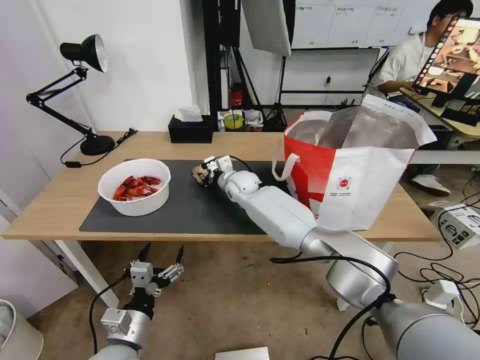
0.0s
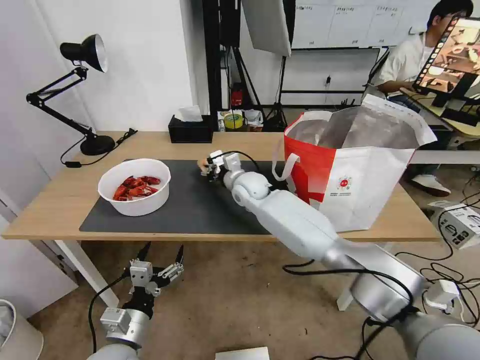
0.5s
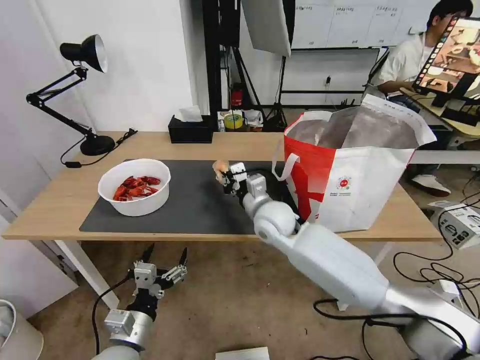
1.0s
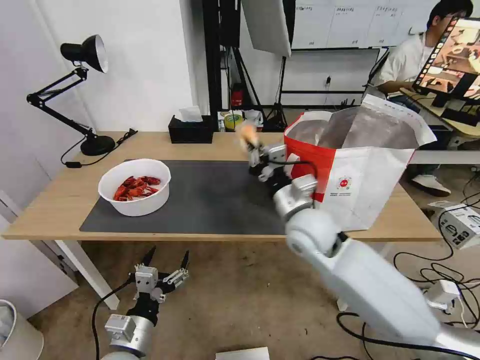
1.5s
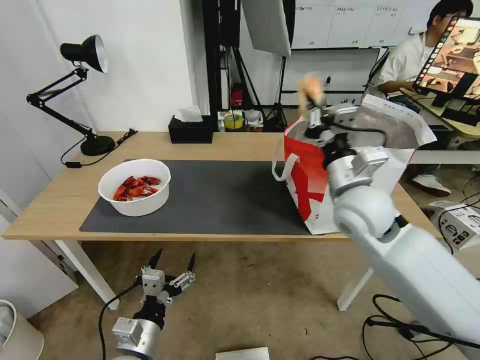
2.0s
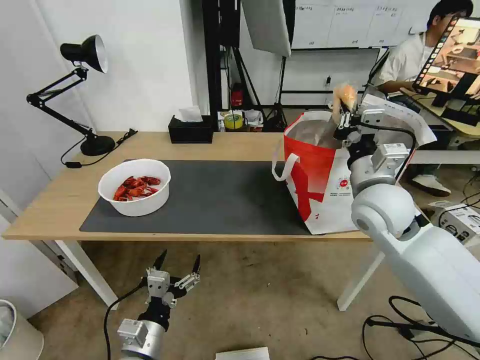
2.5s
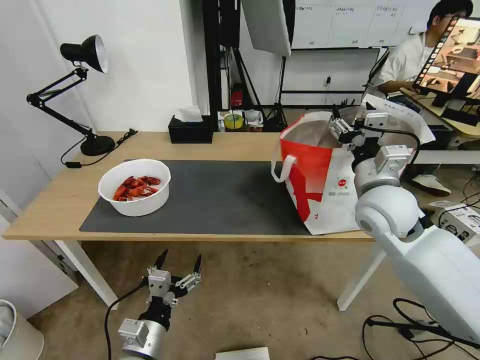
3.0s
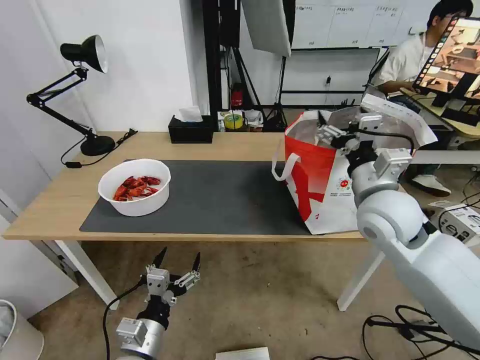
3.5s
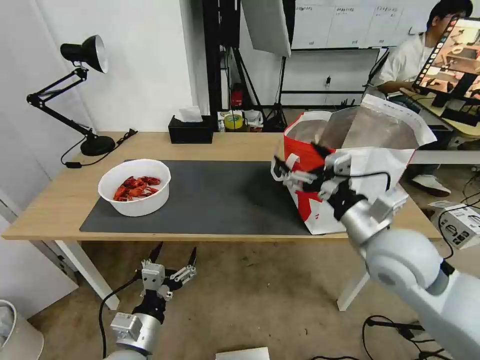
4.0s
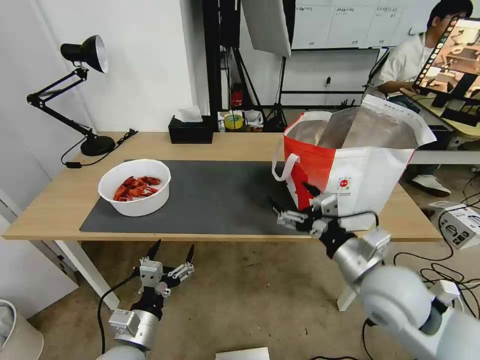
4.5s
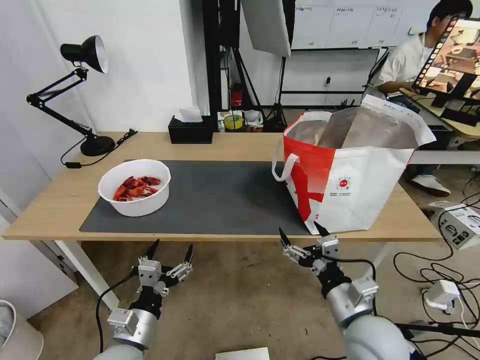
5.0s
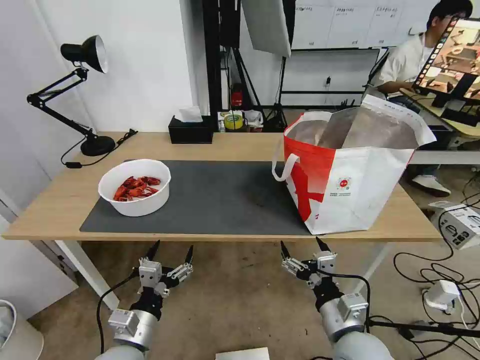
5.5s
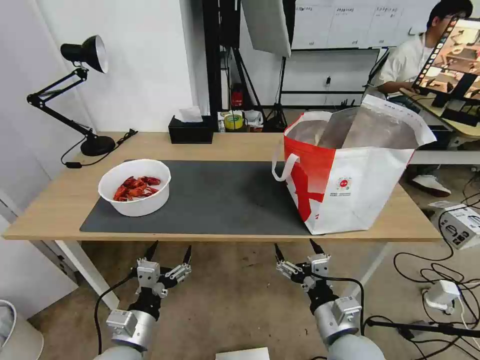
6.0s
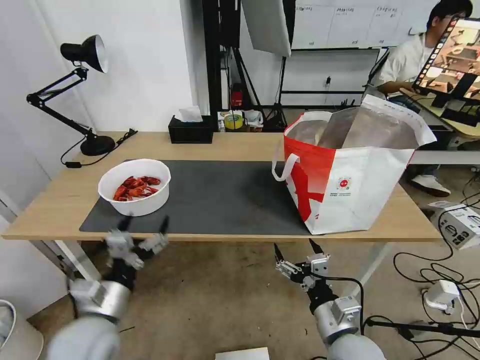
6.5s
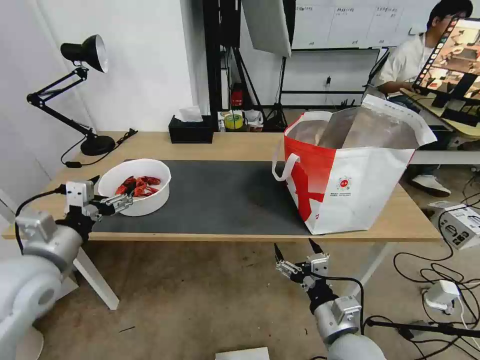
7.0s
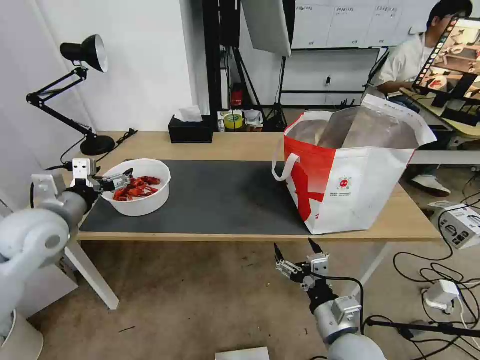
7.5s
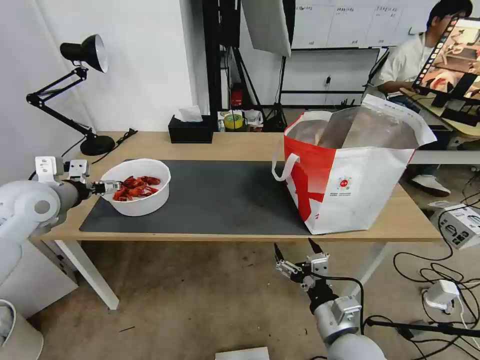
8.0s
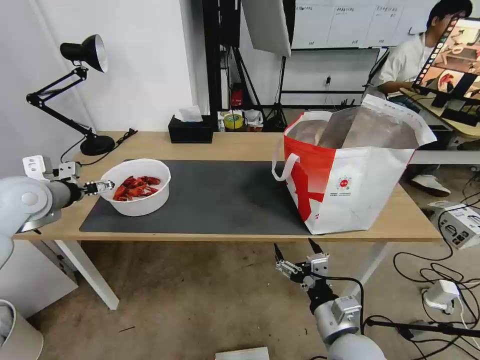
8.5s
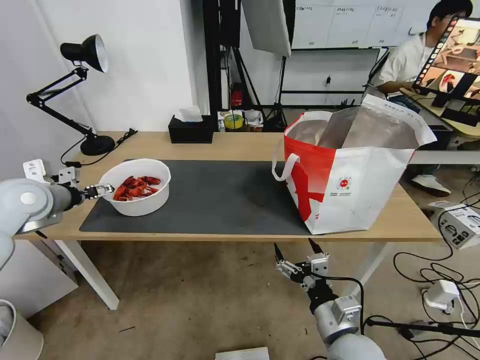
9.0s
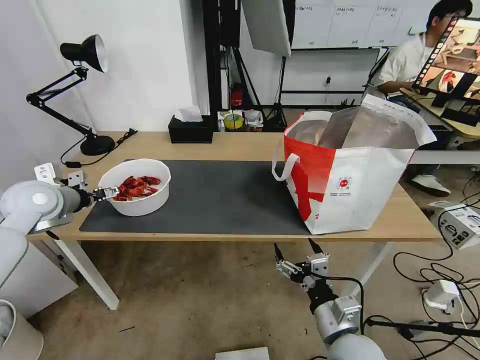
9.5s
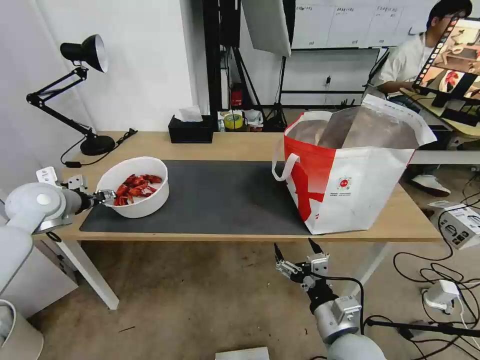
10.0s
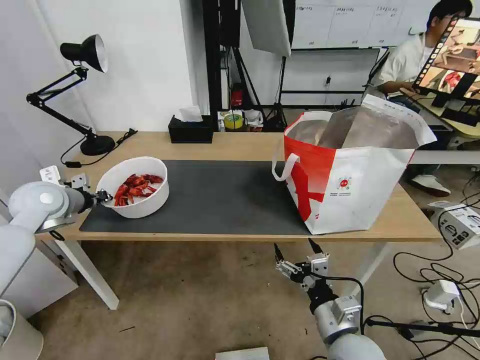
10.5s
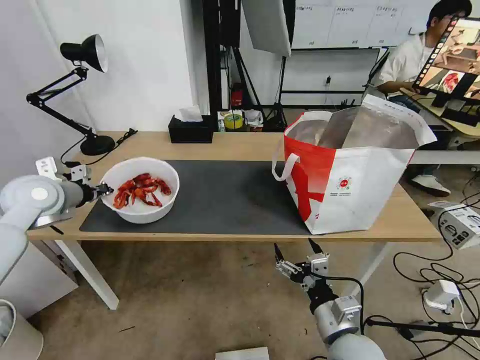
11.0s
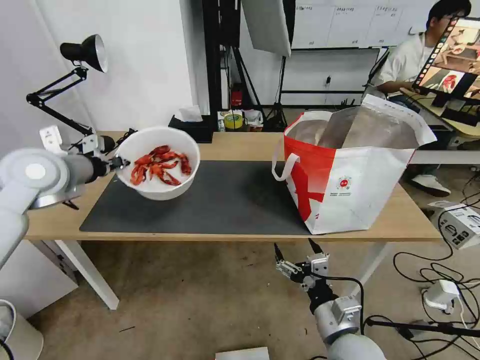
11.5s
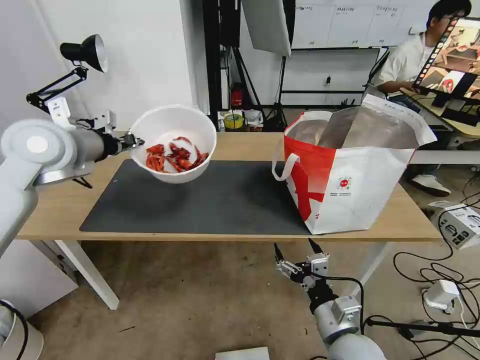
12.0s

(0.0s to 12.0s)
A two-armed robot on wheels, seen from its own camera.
Task of the whole recording: Pick up the trash from the table and place it into the takeout bag.
0.0s - 2.0s: The right gripper travels backward, to the right and upward by about 35 cm.
2.0s - 4.0s: The right gripper moves backward, about 10 cm, and opens up.
4.0s - 6.0s: The right gripper is displaced downward and backward by roughly 20 cm.
6.0s - 8.0s: The left gripper moves forward, upward and to the left, about 35 cm.
8.0s - 10.0s: The left gripper changes place by some 5 cm.
10.0s - 12.0s: The left gripper heads upward and to the right, covering approximately 15 cm, and closes its fingers.

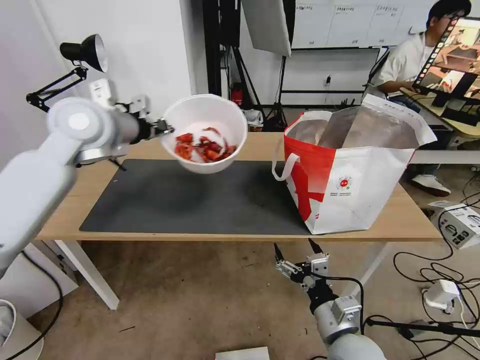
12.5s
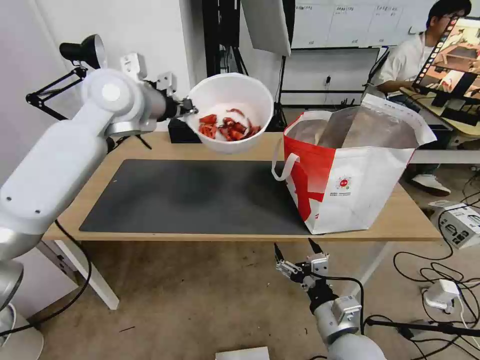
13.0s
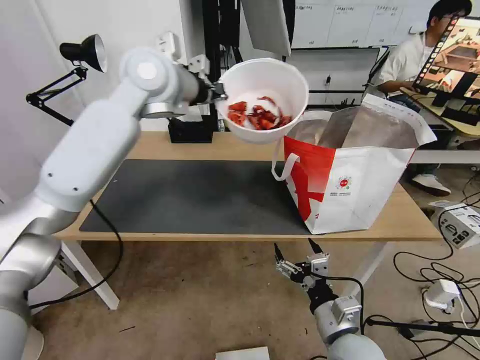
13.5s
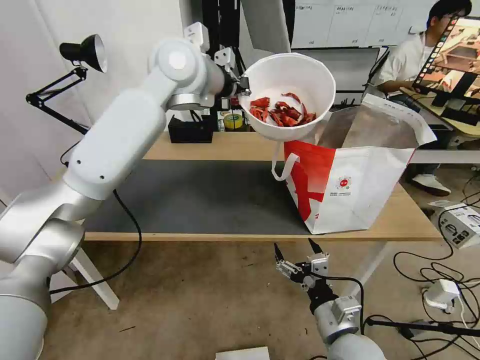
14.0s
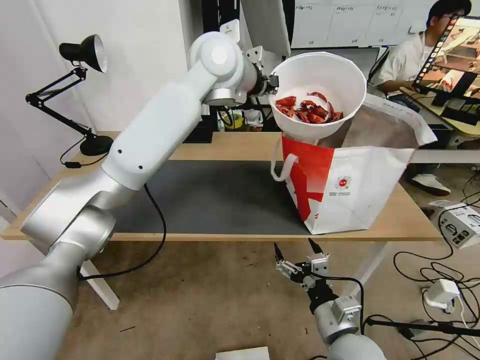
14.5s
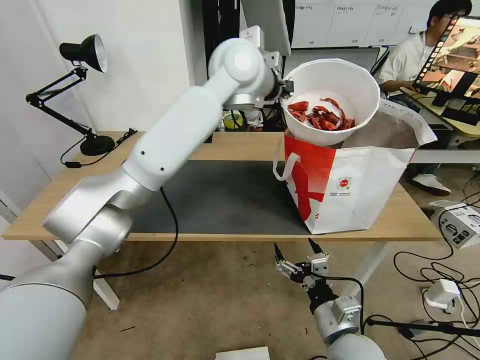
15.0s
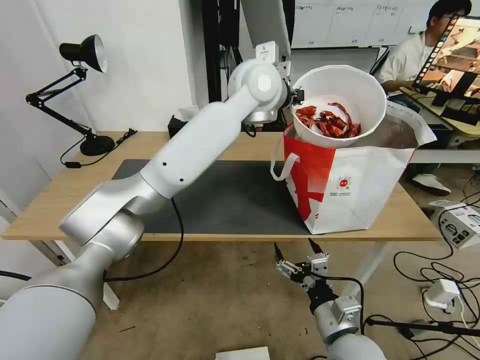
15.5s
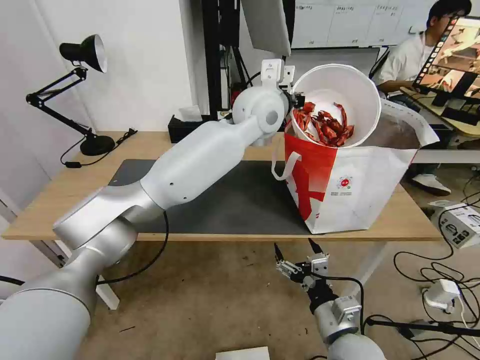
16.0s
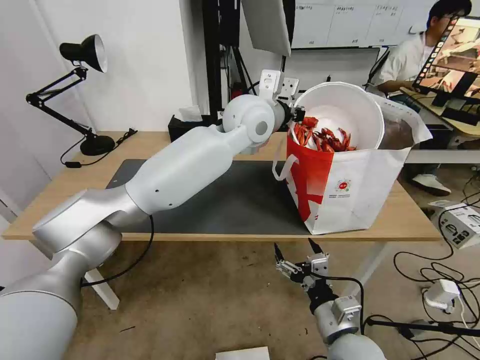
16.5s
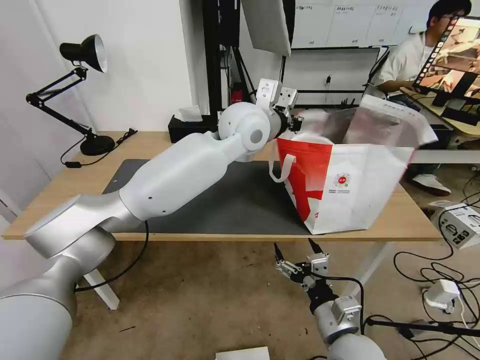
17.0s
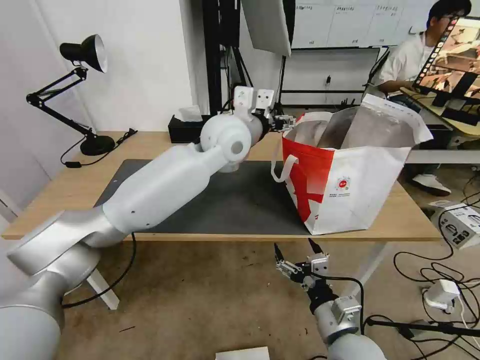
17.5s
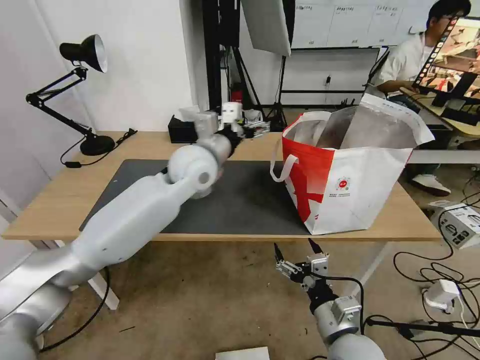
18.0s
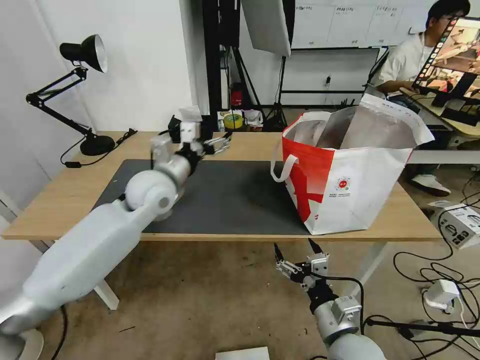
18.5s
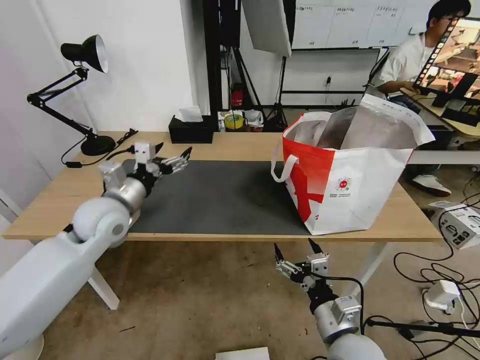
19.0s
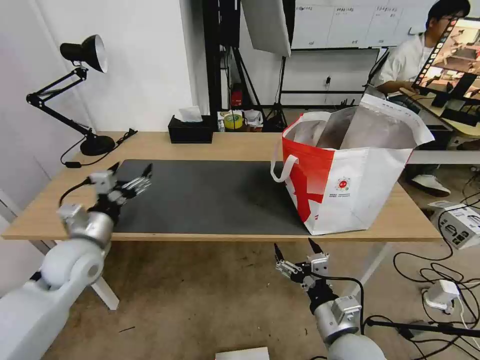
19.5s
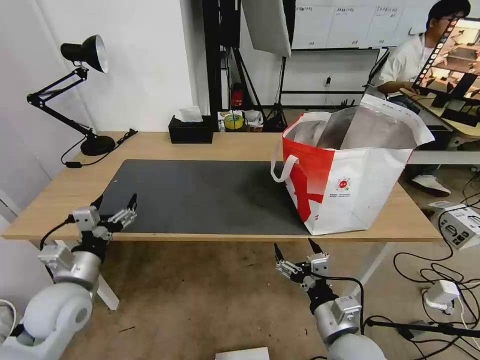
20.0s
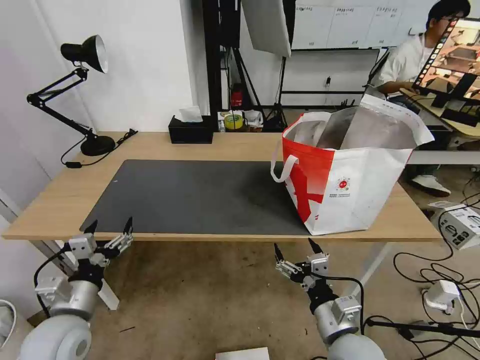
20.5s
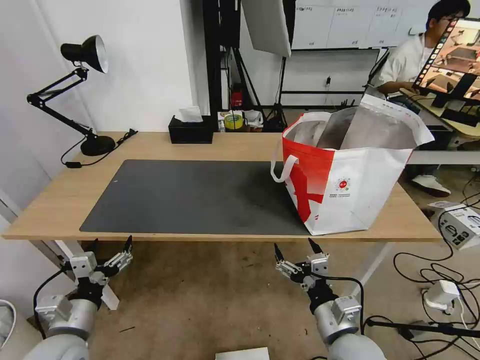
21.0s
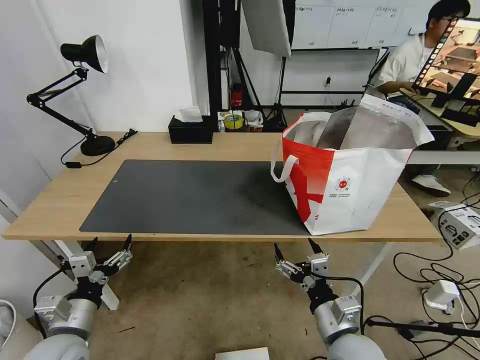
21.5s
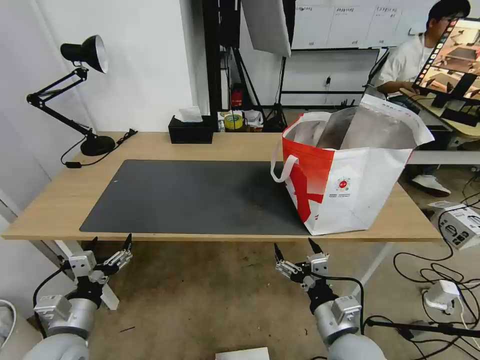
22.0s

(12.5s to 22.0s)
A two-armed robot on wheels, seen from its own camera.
Task of the whole recording: Pick up the trash from the table and place it into the takeout bag.
12.5s - 14.5s: The left gripper shifts about 20 cm to the right.
14.5s - 16.5s: The left gripper travels downward and to the right by approximately 10 cm.
16.5s - 18.0s: The left gripper travels to the left and downward by about 15 cm, and opens up.
18.0s - 20.0s: The left gripper goes some 35 cm to the left, backward and downward.
20.0s - 22.0s: The left gripper travels backward and downward by about 10 cm.
